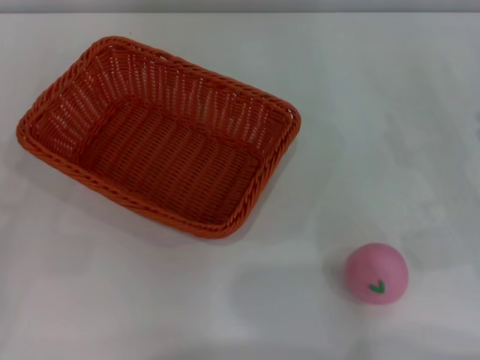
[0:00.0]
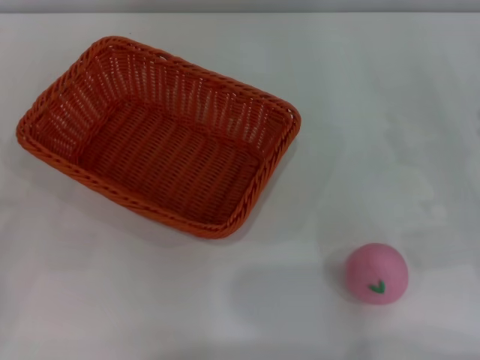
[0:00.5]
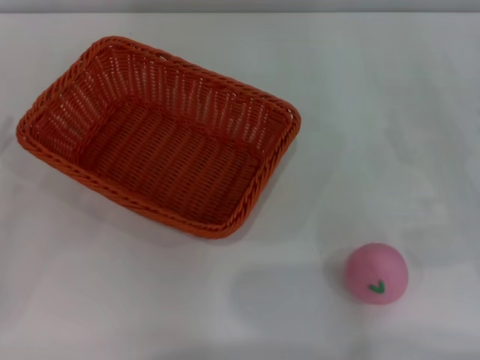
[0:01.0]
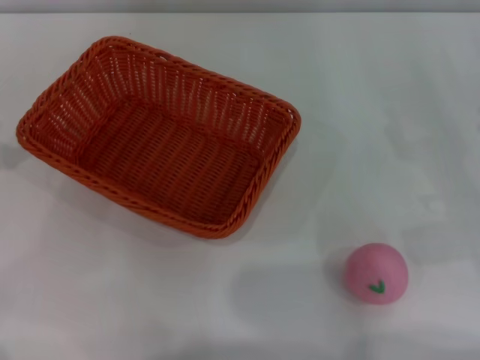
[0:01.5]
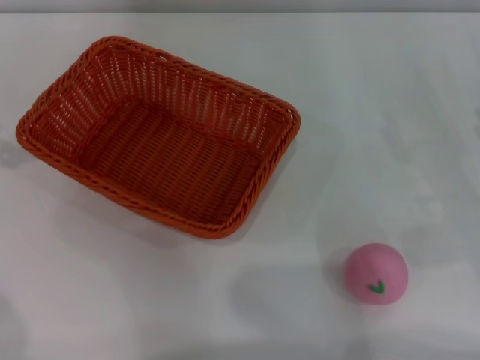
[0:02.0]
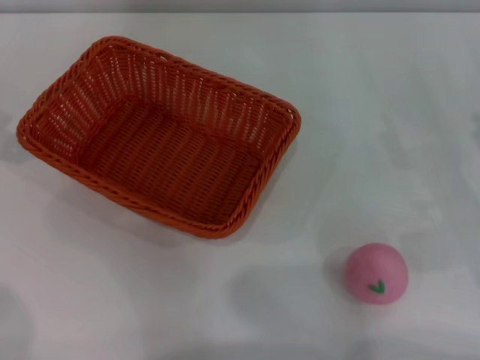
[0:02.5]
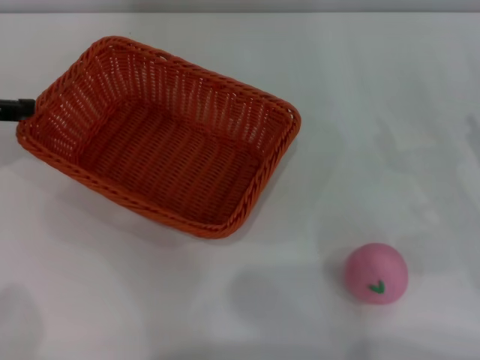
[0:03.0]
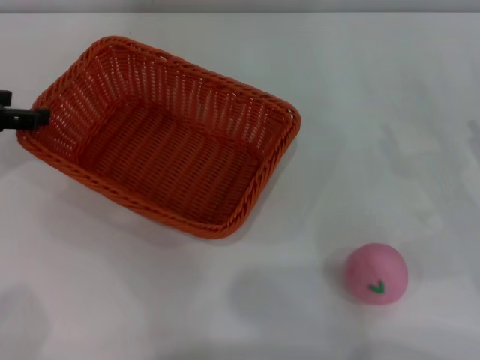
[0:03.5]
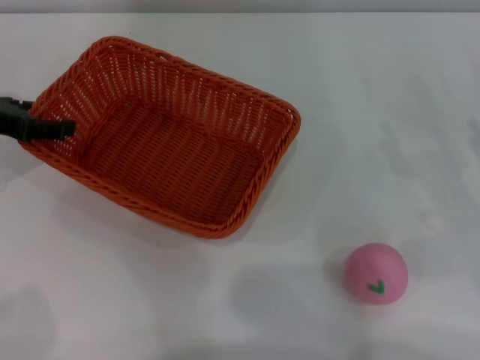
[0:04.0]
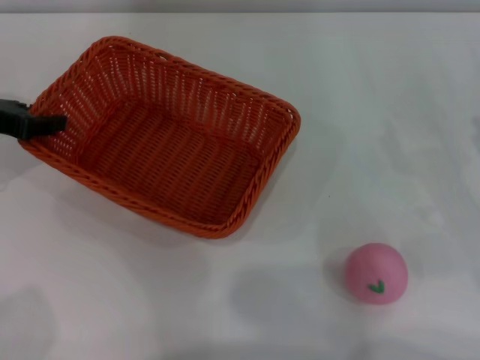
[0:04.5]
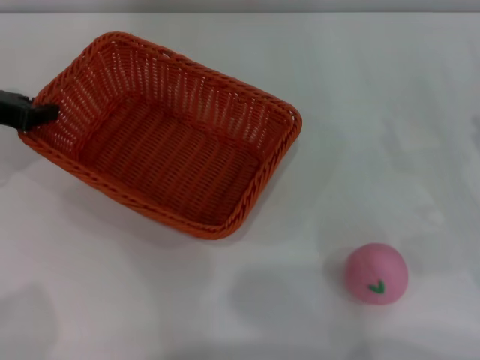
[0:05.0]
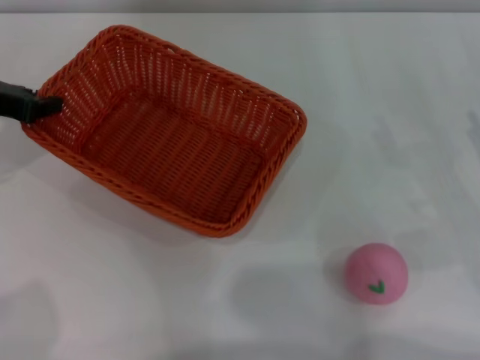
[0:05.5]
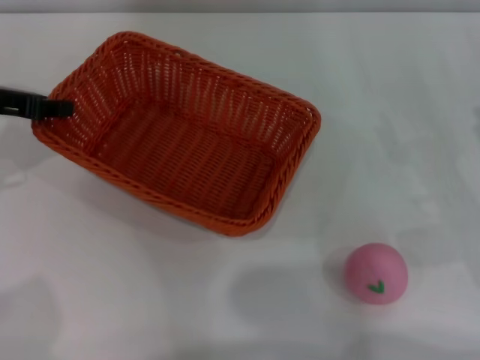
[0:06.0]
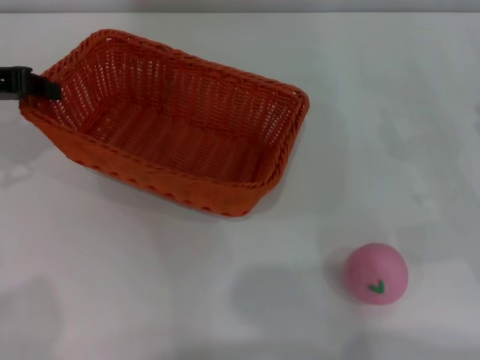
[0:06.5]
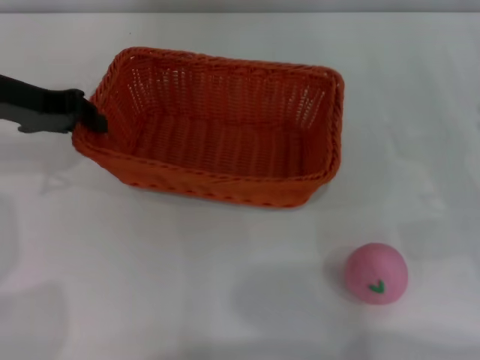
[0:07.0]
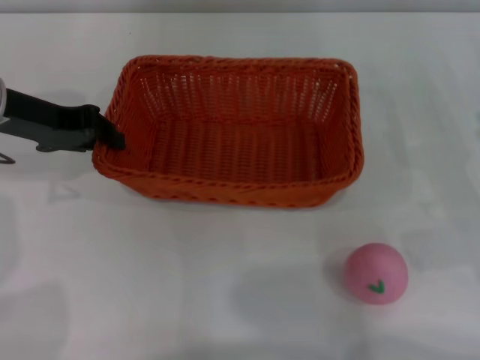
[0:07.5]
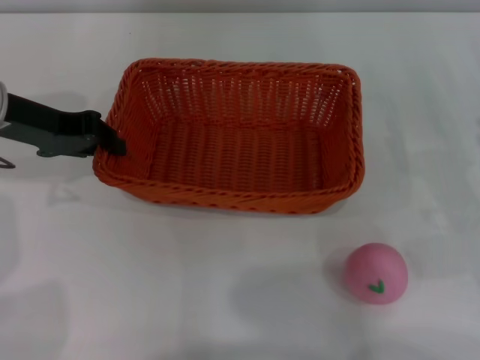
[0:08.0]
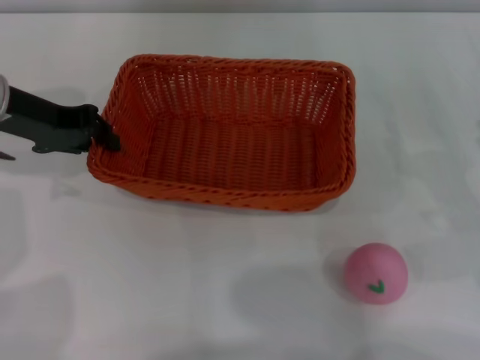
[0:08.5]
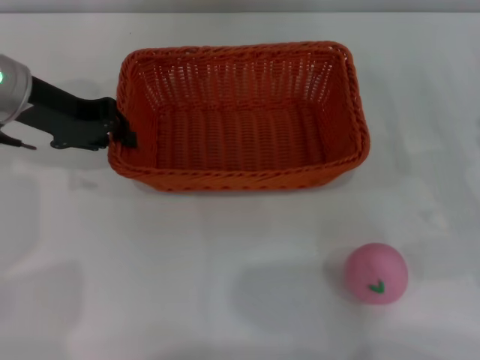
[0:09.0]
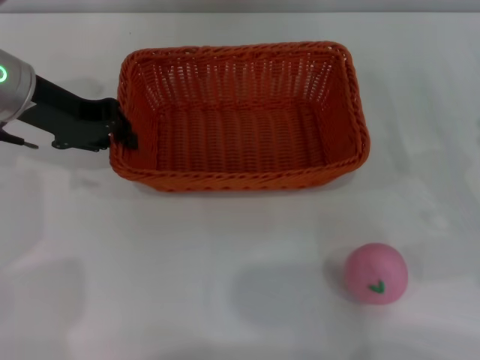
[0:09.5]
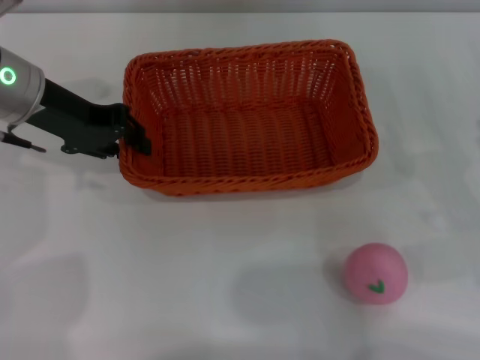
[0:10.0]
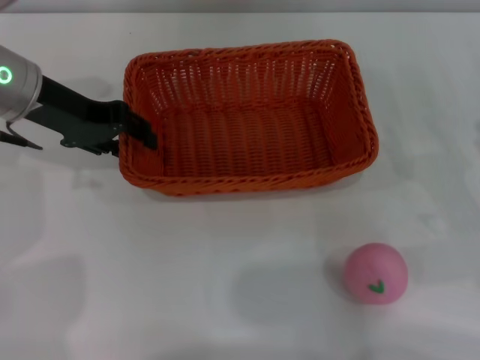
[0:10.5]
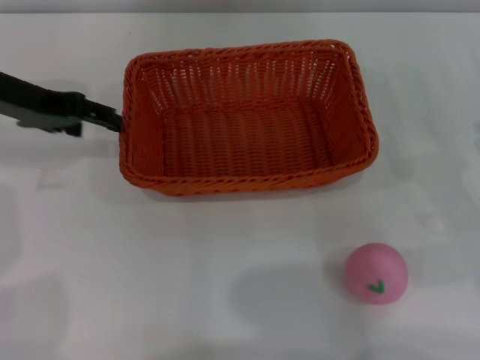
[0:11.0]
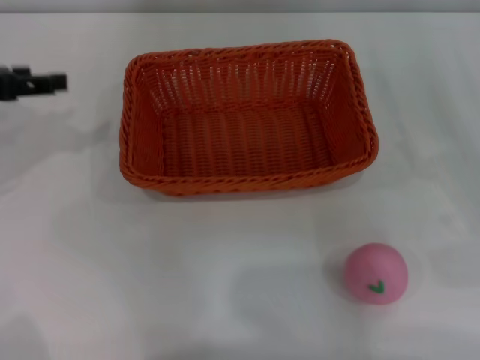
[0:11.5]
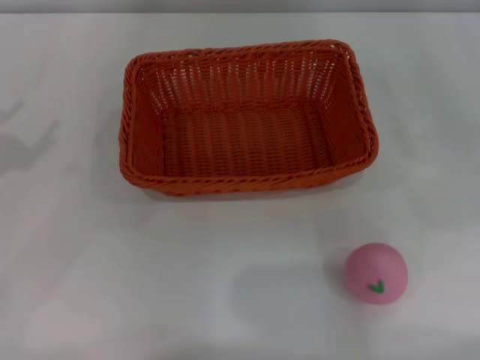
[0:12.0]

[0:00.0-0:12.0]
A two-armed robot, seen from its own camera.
Step, 0.0 to 6.0 s: Pick up the light basket with the left gripper.
Step, 6.5 to 11.0 s: Place the light basket in the center of view with the right gripper.
2.0 to 4.0 s: The left gripper goes roughly 10 cm downward and to the right.
4.0 to 6.0 s: The left gripper closes its fingers.
6.0 to 8.0 s: The left gripper moves to the right, roughly 5 cm.
8.0 to 10.0 s: There are only small adjustments of the grippers.
10.0 to 12.0 s: The left gripper is displaced to the left and backward by some 20 cm, and opens its fingers.

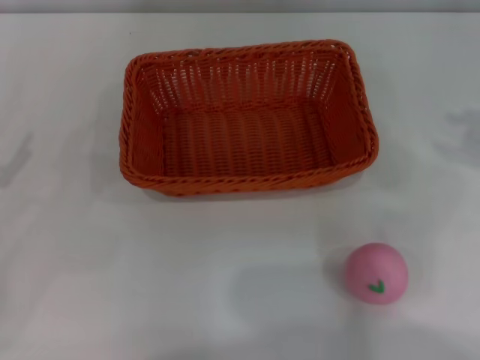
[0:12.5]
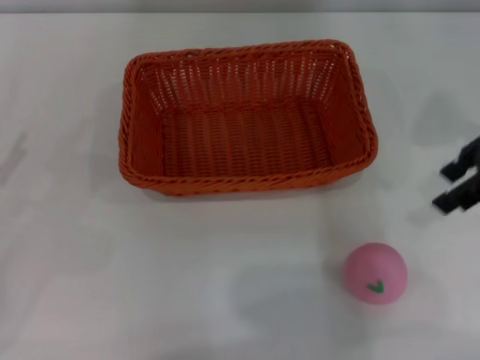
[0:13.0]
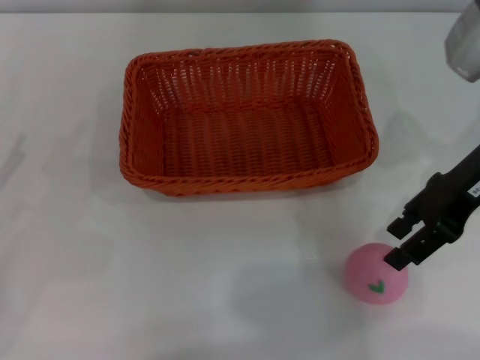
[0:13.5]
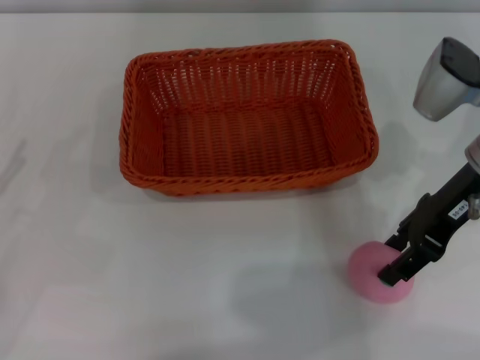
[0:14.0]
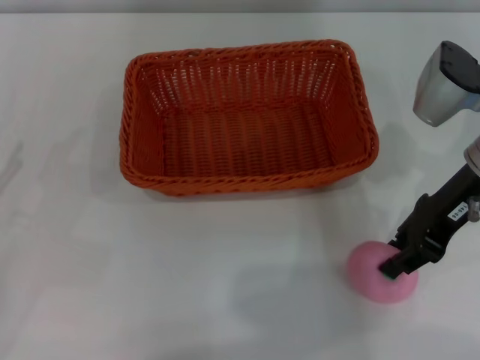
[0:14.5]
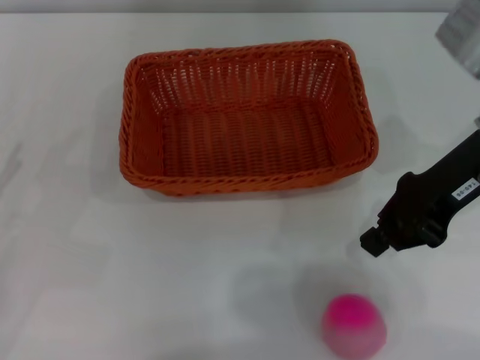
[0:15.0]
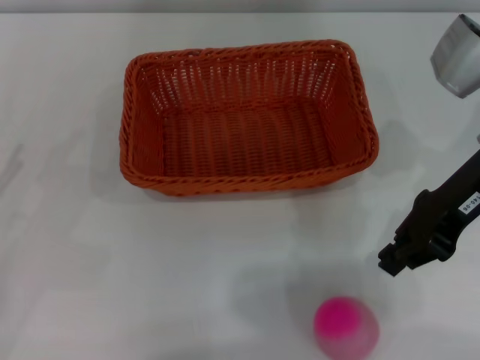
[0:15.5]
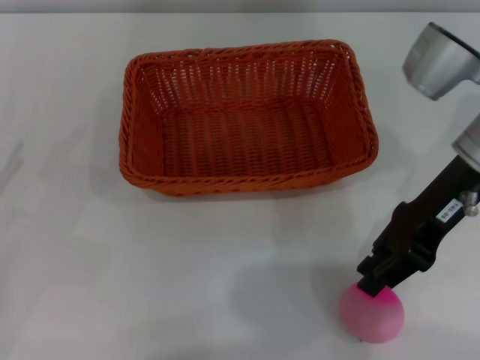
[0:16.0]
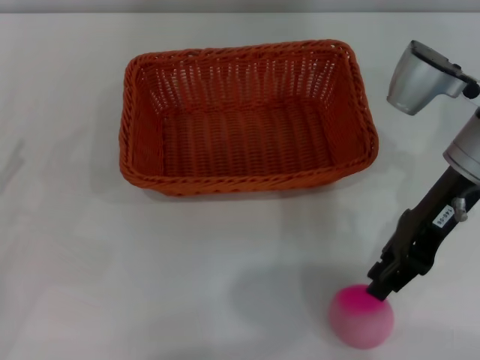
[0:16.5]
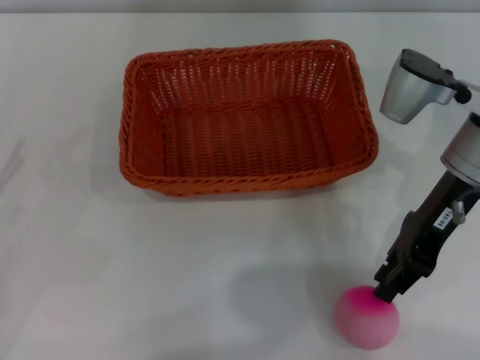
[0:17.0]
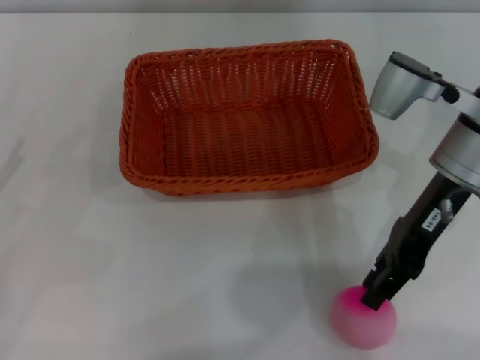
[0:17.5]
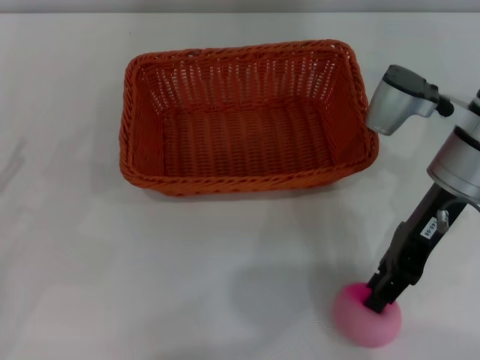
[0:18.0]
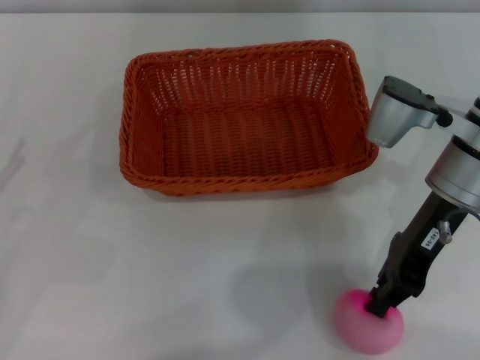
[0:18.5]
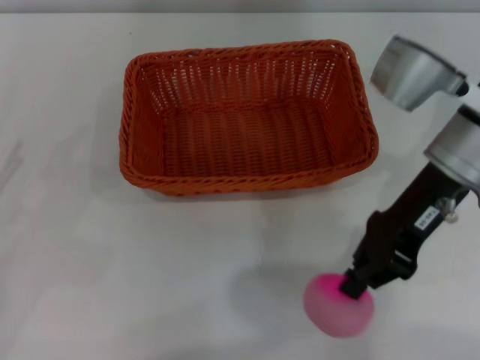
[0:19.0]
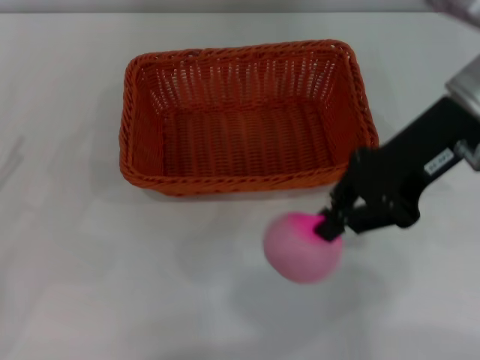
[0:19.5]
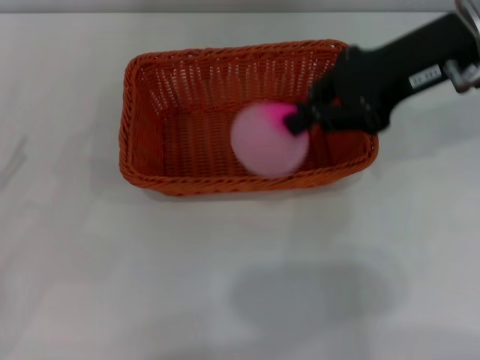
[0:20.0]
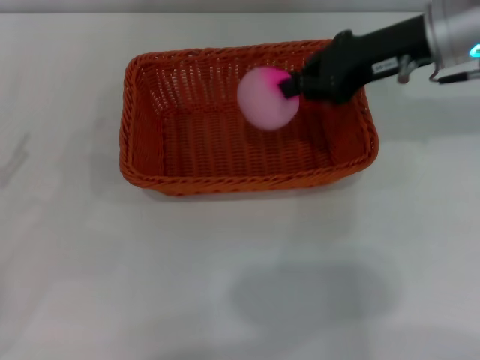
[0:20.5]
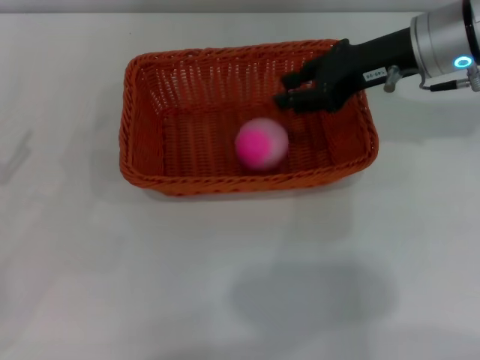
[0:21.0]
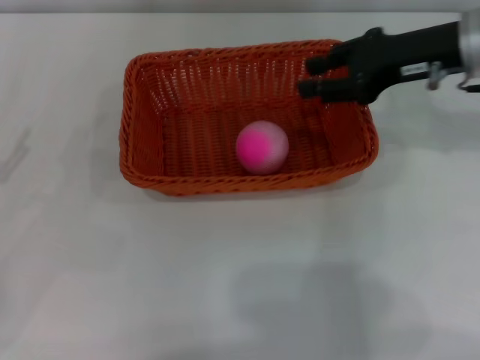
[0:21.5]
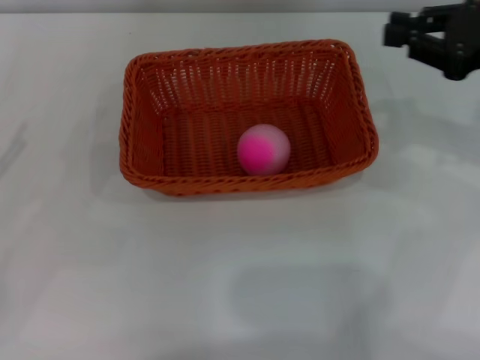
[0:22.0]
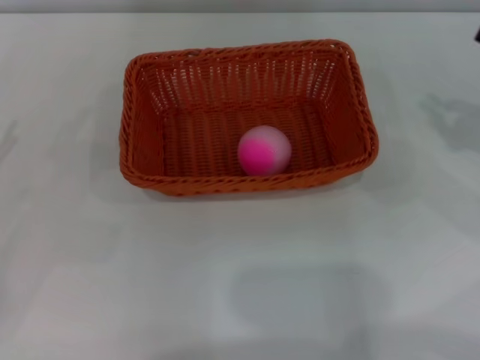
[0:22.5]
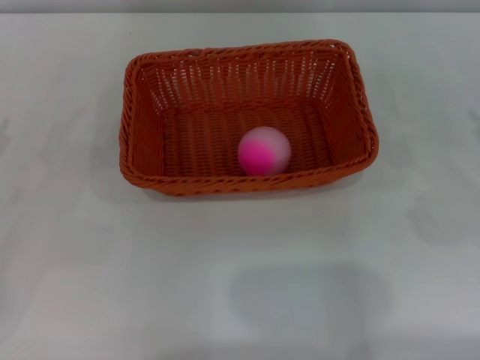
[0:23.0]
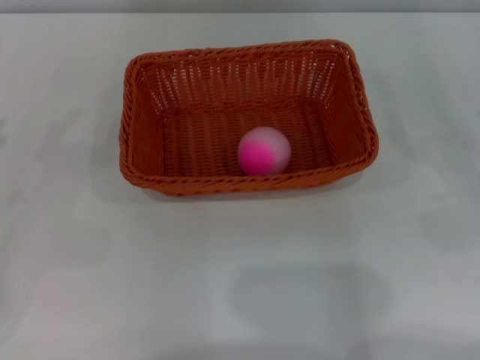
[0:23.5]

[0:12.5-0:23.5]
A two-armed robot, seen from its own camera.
12.5 to 14.5 s: The right gripper travels to the left and downward by some 15 cm.
14.5 to 16.0 s: The right gripper closes, then reopens.
16.0 to 18.0 s: The grippers make only small movements.
18.0 to 20.0 s: The right gripper heads upward, covering roughly 10 cm, and closes.
20.0 to 21.5 s: The right gripper changes place by roughly 5 cm, and opens.
21.5 to 23.5 s: The right gripper moves to the right, backward and downward, some 25 cm, and closes and opens again.

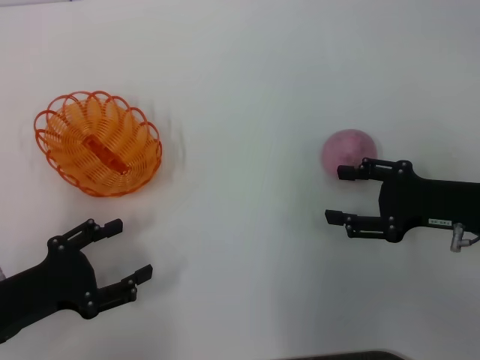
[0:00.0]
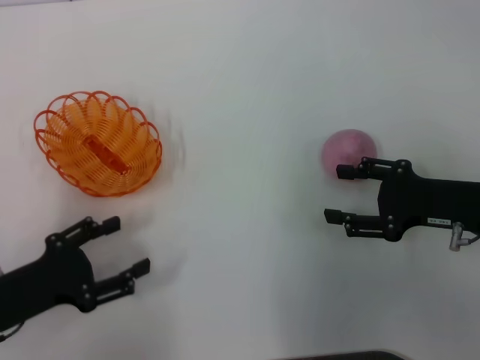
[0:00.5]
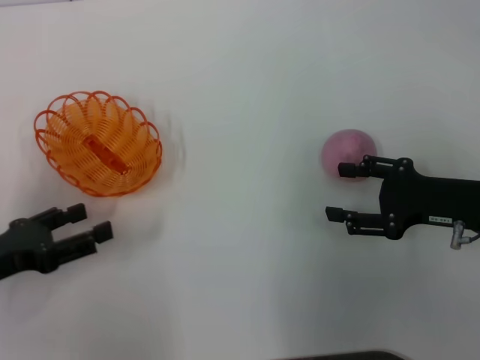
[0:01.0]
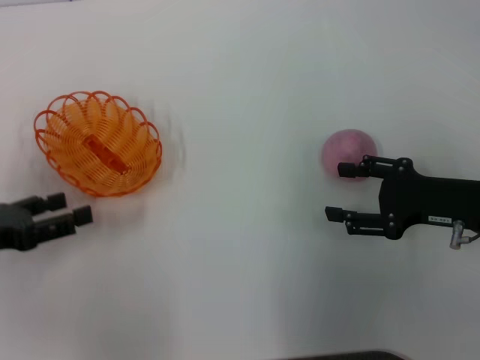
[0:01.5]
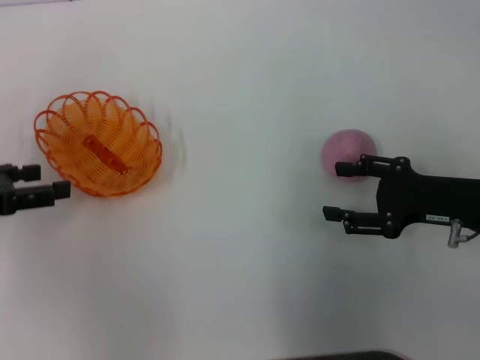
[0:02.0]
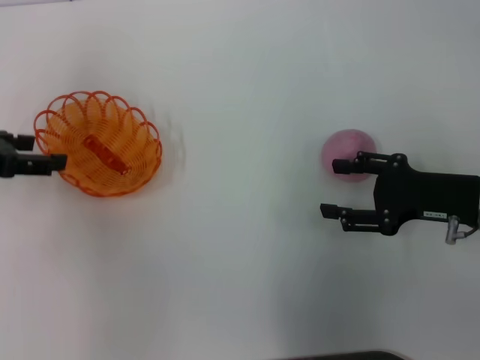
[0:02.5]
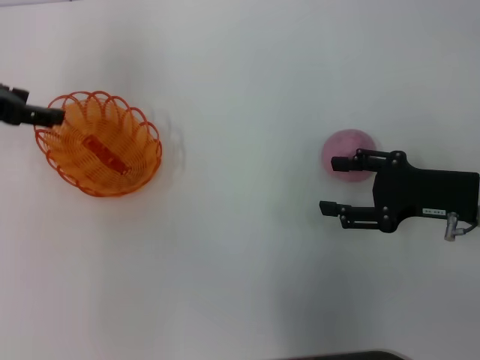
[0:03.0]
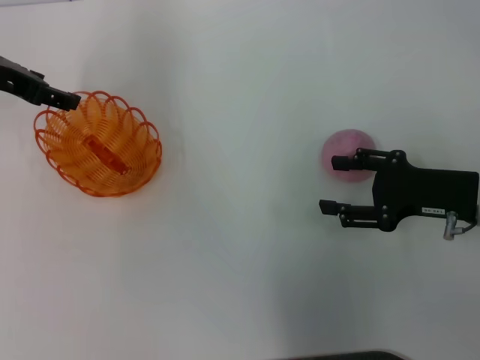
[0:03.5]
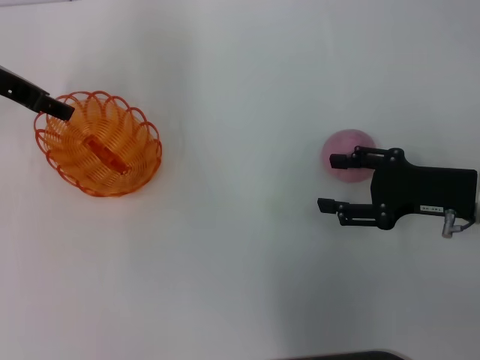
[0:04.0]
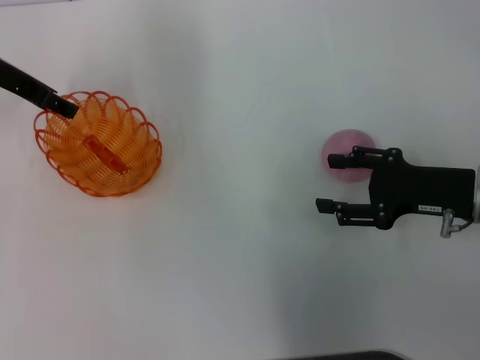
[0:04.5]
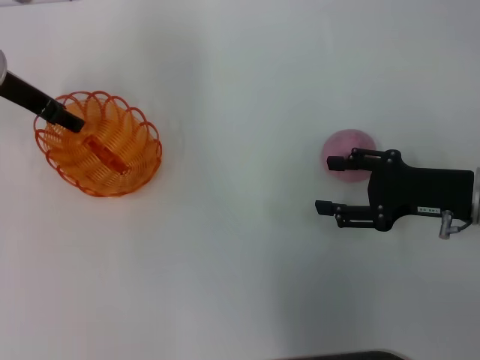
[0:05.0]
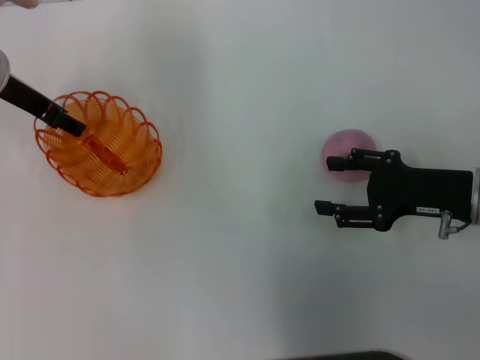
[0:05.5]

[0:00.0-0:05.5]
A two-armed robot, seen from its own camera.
0.0 to 2.0 s: The left gripper moves forward, upward and to the left, some 15 cm.
2.0 to 3.5 s: The left gripper moves forward, to the right and upward, approximately 15 cm.
3.5 to 5.5 s: The grippers stay close to where they were, moving slightly.
